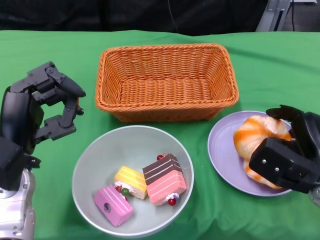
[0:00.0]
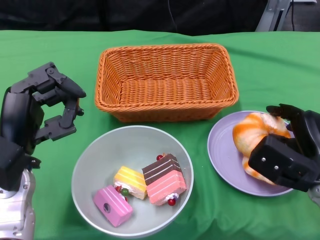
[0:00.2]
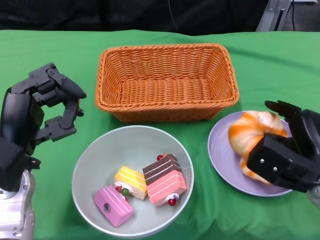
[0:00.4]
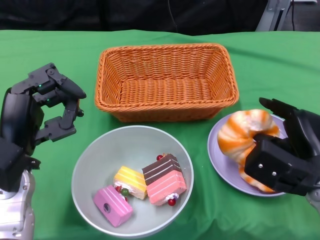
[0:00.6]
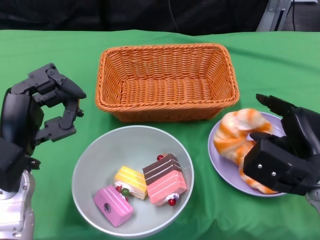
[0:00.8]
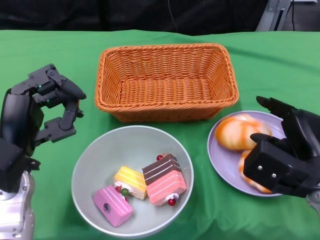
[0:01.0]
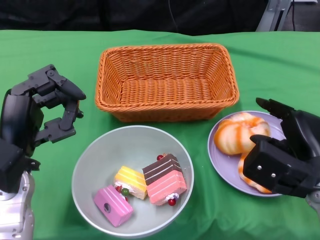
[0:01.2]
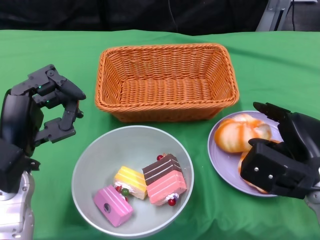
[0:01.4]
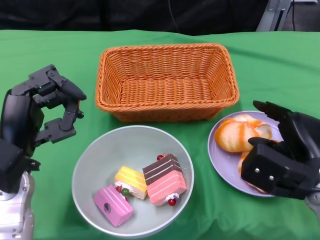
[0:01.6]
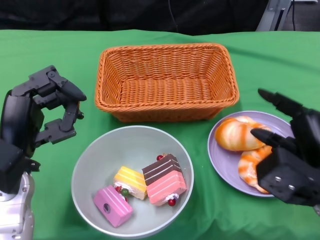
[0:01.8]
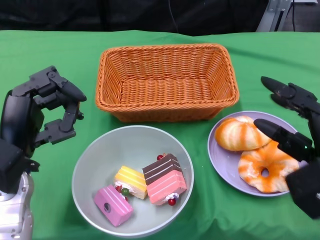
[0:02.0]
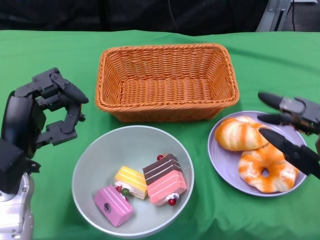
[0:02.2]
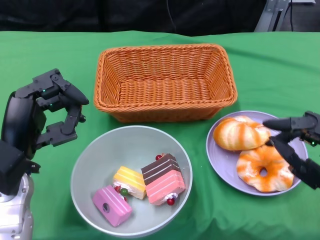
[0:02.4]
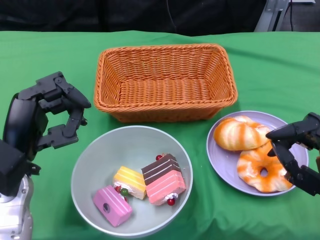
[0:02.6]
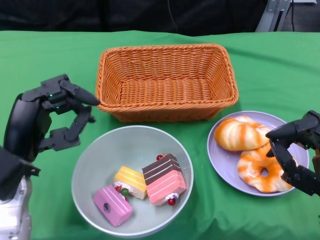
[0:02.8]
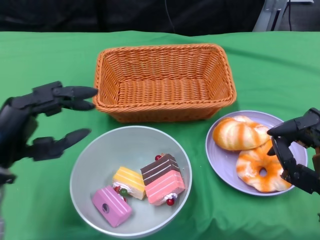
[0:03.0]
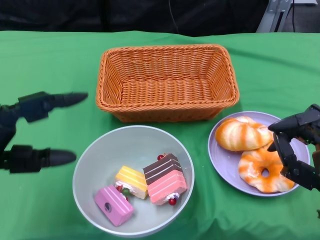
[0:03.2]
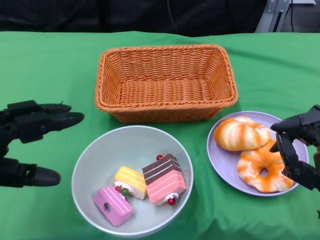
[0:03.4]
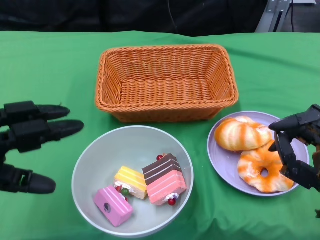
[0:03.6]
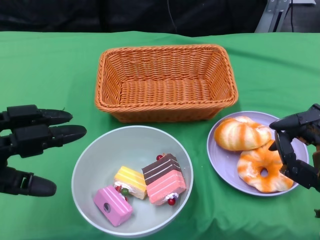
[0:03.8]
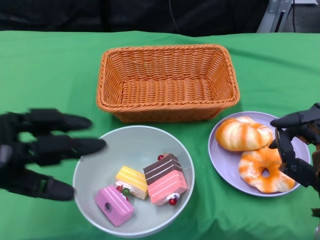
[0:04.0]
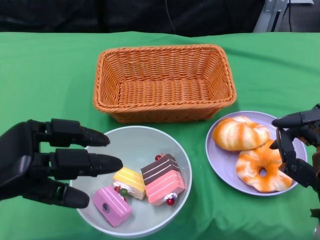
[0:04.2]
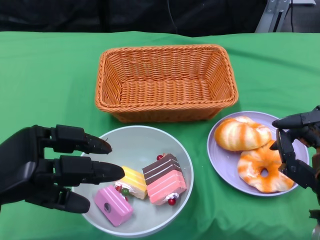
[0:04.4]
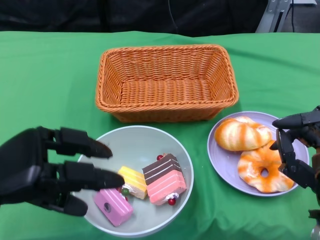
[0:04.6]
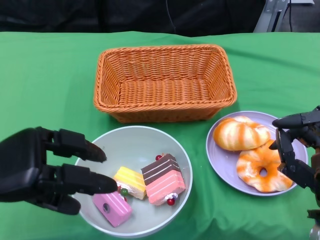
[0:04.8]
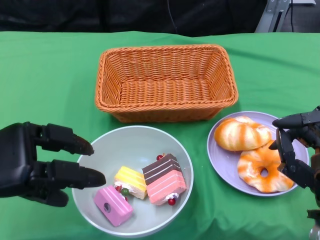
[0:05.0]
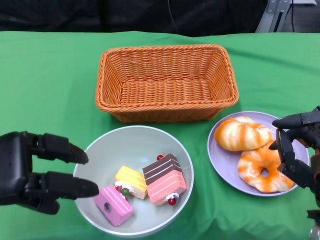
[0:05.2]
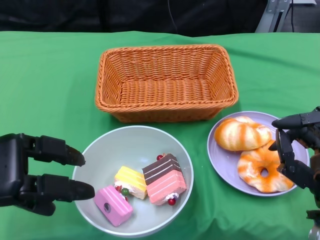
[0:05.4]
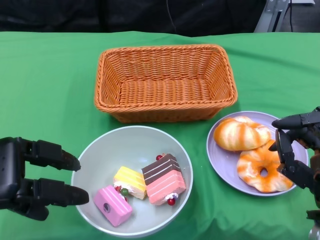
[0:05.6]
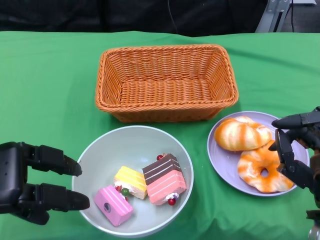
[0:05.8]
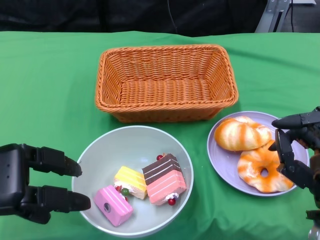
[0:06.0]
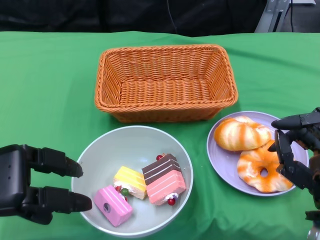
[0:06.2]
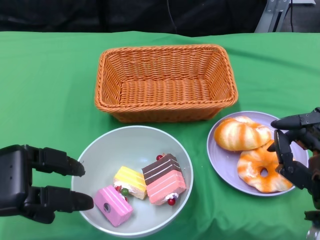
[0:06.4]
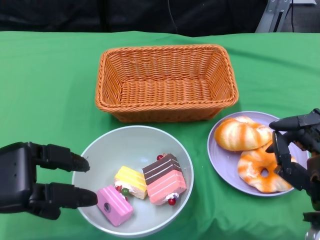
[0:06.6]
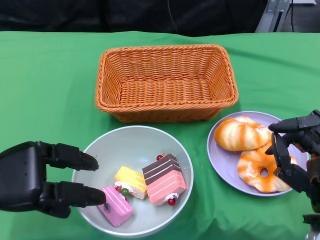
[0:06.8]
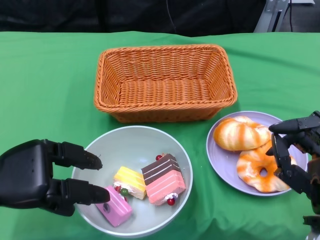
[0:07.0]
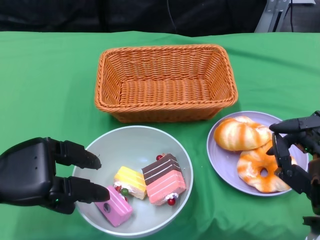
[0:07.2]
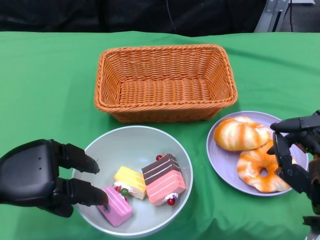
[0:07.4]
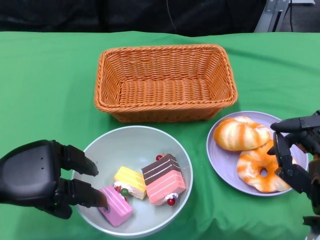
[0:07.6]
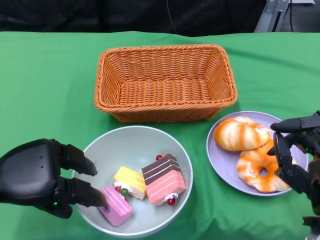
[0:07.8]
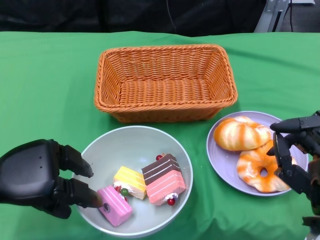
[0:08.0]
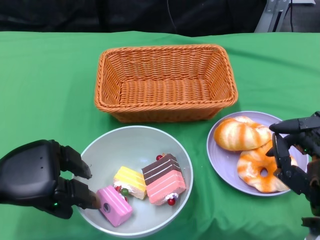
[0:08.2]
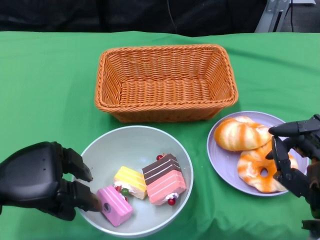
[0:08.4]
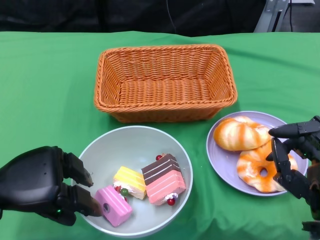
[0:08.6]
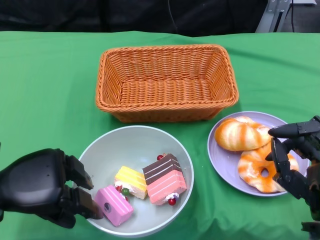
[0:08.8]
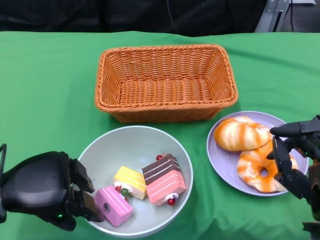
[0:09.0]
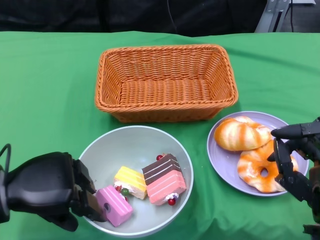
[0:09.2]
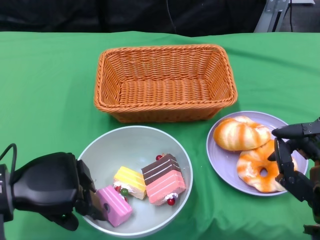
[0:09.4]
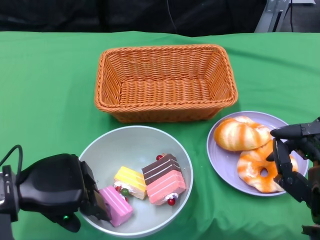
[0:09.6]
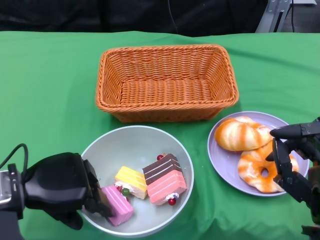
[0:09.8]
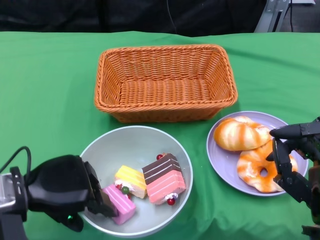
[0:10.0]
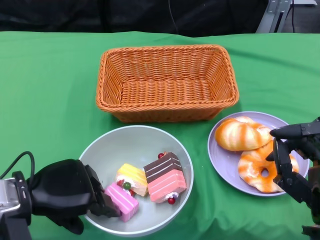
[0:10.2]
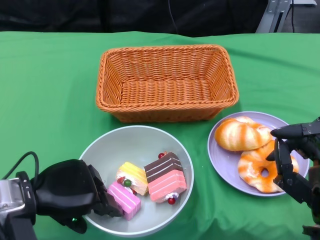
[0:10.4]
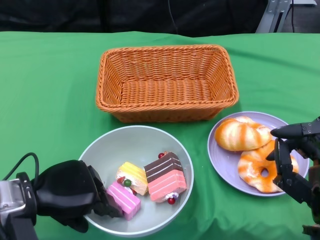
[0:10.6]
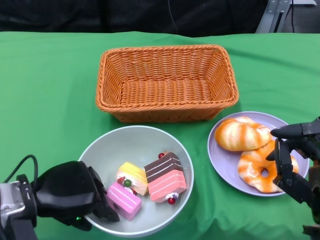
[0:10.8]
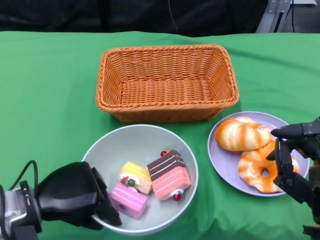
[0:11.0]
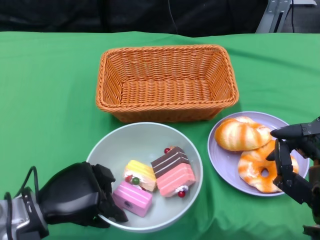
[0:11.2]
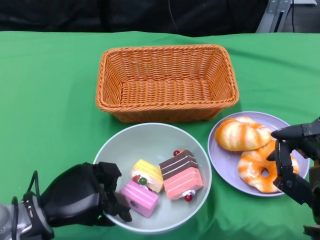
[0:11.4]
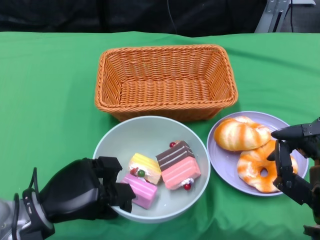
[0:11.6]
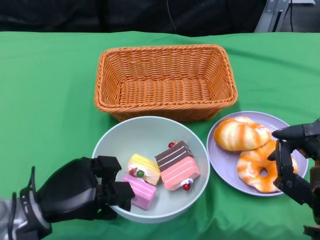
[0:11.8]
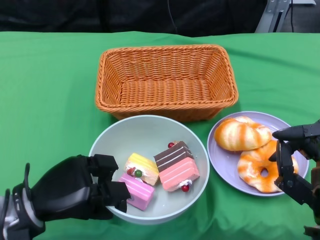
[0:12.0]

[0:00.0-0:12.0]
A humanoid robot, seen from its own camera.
0:00.0 to 0:01.6: There are only small adjustments of the hands.
0:01.6 to 0:03.0: The right hand moves backward, approximately 10 cm.
0:06.0 to 0:09.0: The hands make only small movements.
0:09.0 to 0:10.4: The hands move only a little.

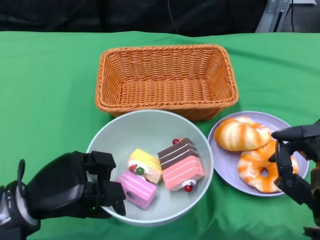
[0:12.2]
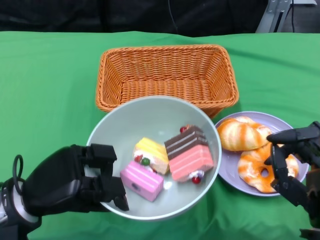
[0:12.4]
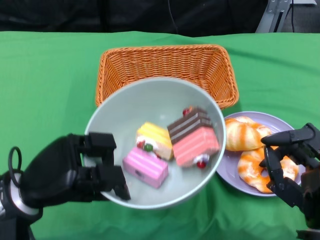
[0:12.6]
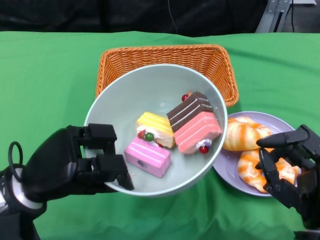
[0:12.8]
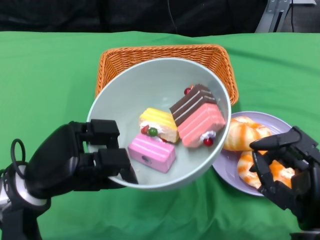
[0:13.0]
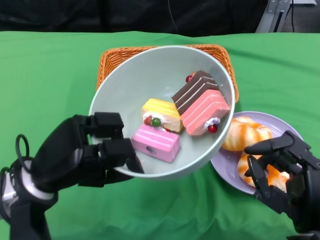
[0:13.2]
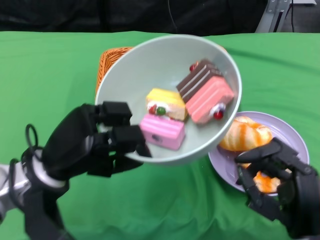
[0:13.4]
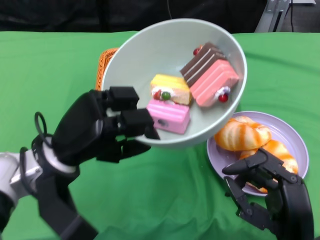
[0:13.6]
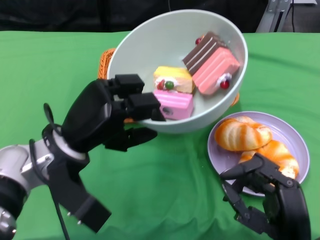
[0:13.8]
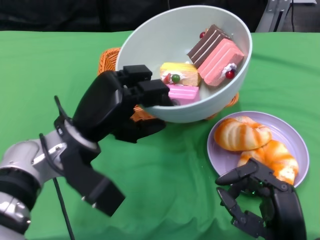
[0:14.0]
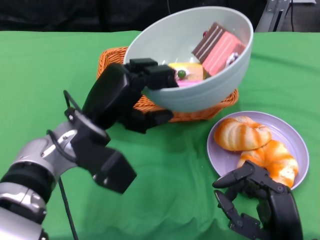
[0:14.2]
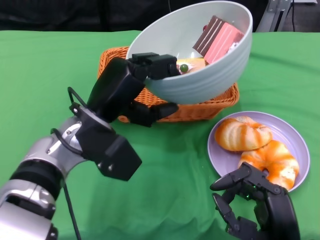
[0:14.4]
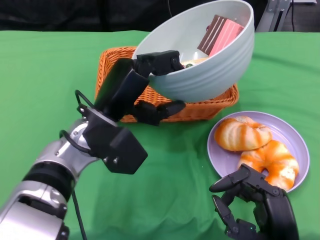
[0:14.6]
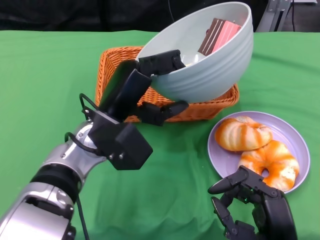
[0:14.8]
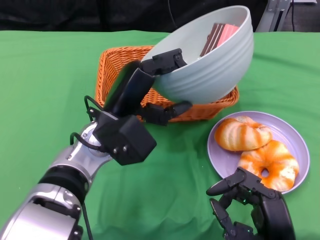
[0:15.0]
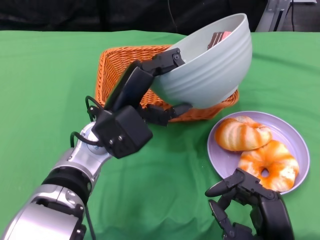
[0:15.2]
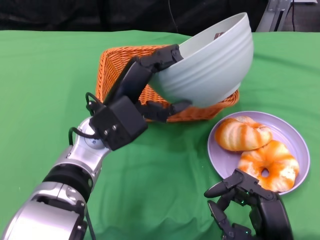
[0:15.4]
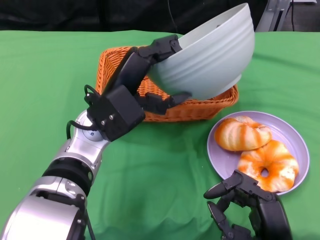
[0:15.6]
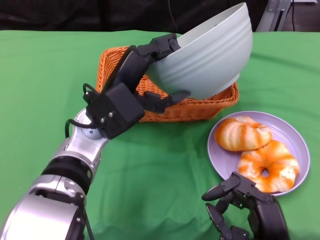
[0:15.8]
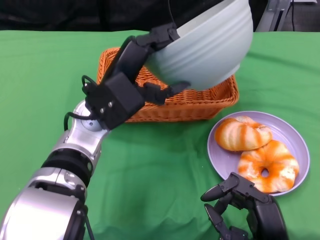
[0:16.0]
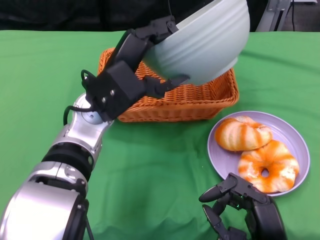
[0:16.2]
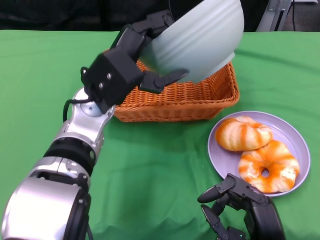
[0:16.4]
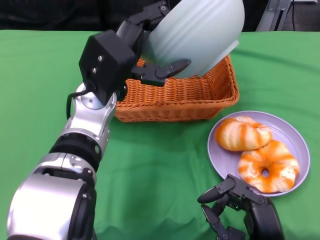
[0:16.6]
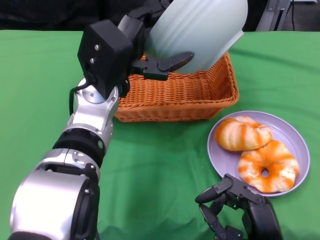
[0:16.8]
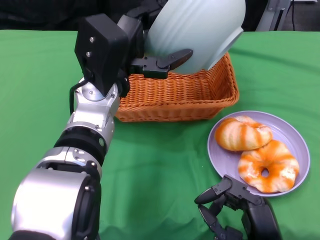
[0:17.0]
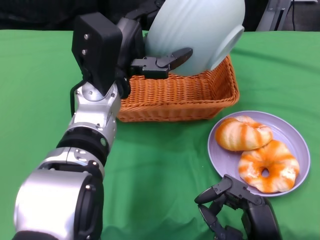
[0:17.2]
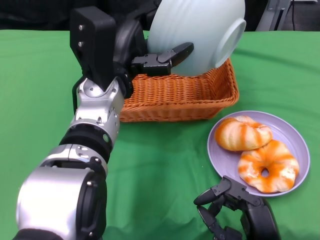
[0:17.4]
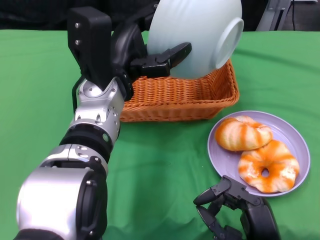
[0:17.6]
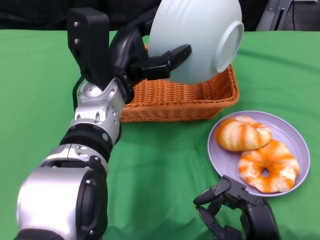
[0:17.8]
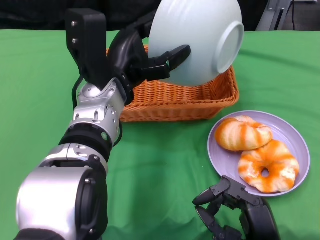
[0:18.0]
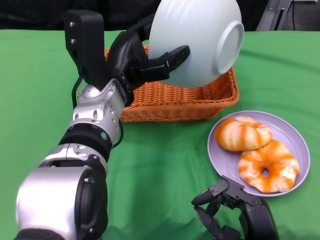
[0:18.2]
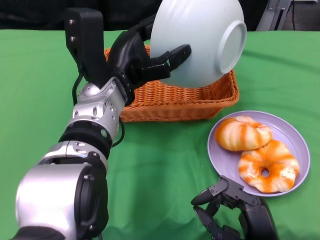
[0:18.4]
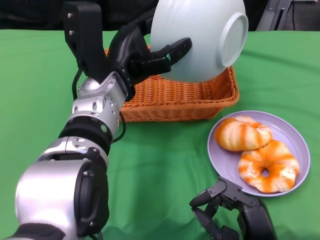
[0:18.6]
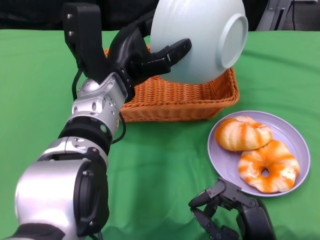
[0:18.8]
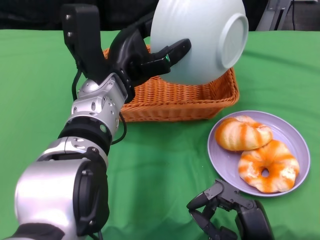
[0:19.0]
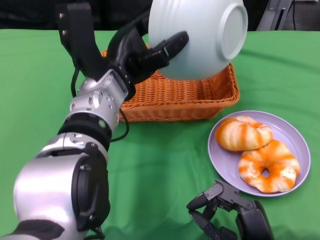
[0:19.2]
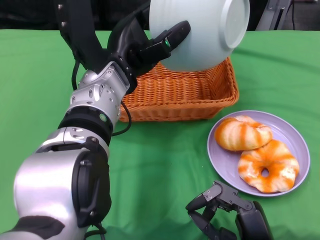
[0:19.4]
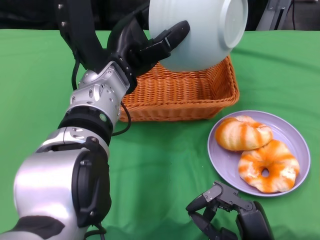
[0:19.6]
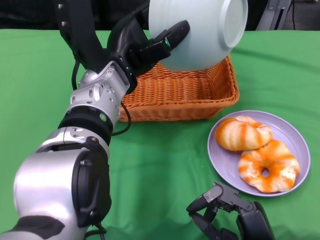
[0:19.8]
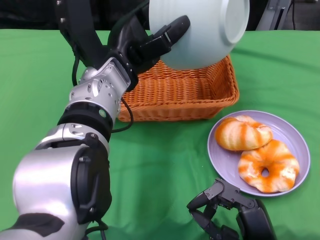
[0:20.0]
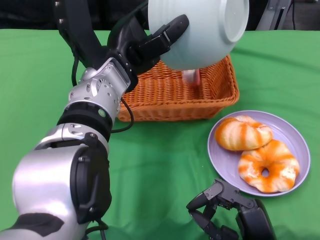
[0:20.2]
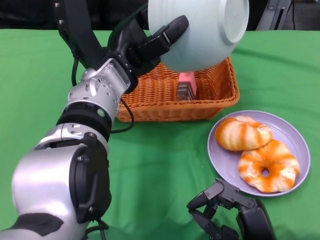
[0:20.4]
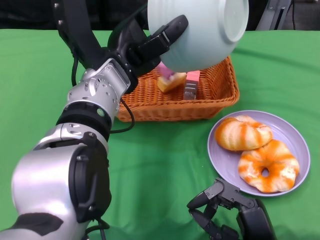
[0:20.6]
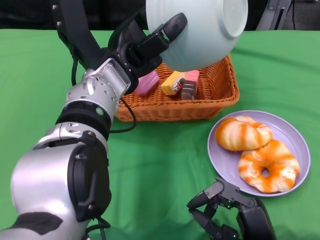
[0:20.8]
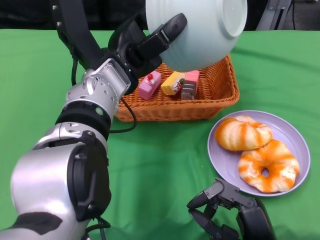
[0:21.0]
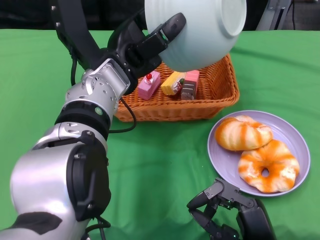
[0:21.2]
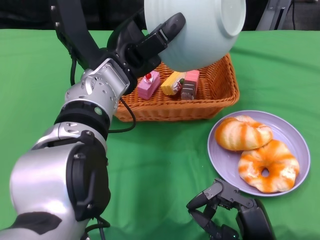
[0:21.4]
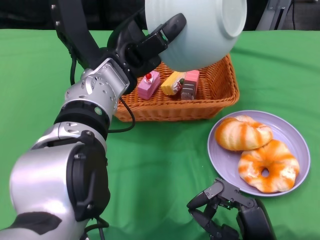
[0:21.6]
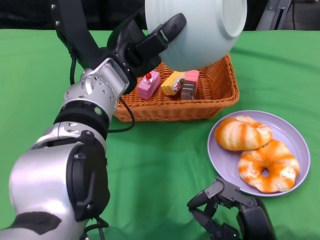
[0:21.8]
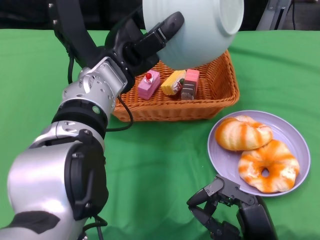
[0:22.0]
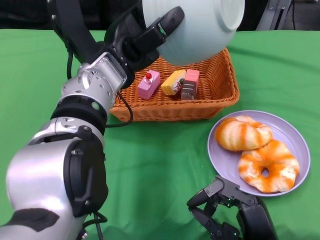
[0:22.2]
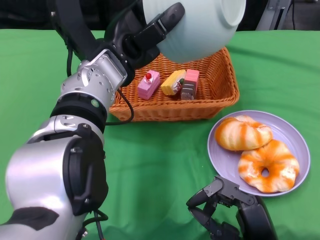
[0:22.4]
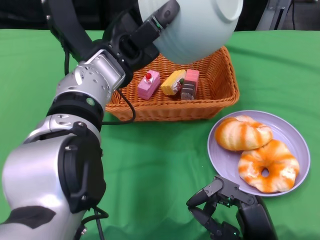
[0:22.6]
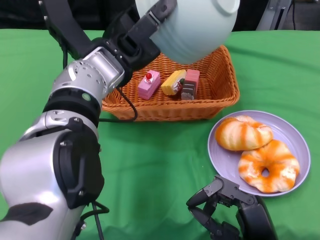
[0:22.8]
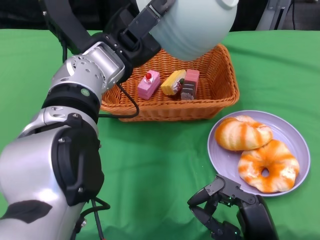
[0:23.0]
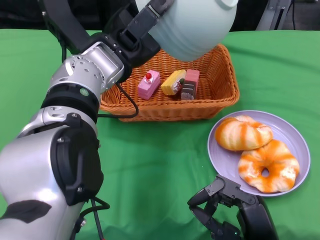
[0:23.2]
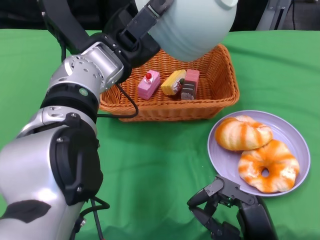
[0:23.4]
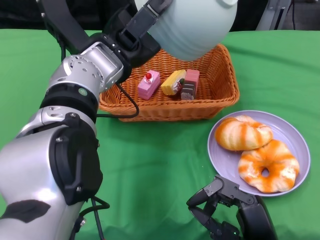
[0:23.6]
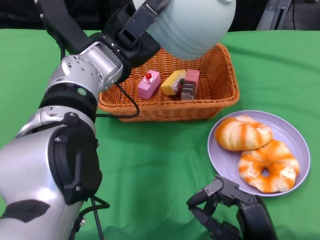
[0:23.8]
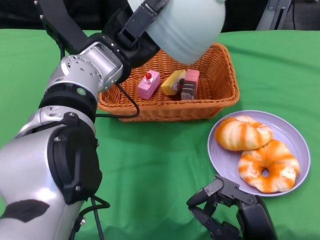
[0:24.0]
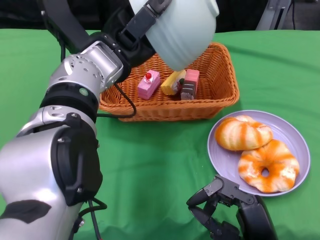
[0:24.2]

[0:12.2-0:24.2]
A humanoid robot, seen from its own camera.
Step, 0:13.4 to 0:22.8: Pour the cake into the basket with the left gripper.
0:12.2 to 0:13.8: The left hand travels to the right, upward and forward by some 10 cm.
0:13.8 to 0:15.2: The left hand heads to the right, covering some 5 cm.
0:15.2 to 0:16.6: The left hand ends up roughly 5 cm from where it was.
0:19.8 to 0:21.2: The hands make only small movements.
0:22.6 to 0:24.2: There are only small adjustments of the hands.
